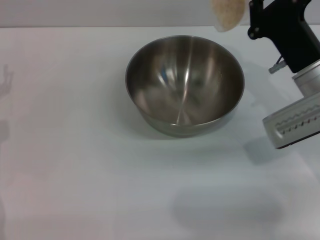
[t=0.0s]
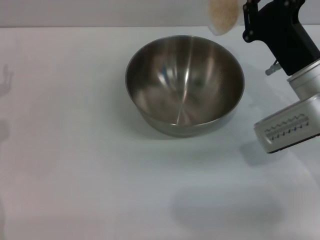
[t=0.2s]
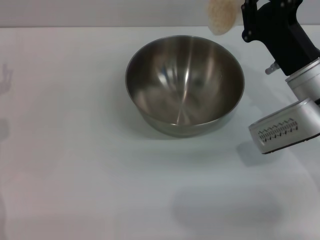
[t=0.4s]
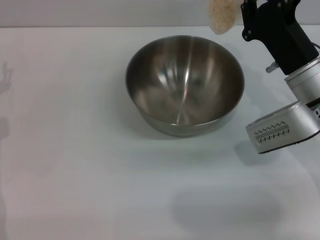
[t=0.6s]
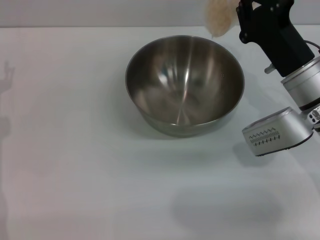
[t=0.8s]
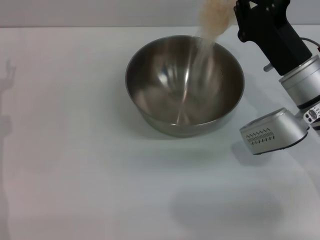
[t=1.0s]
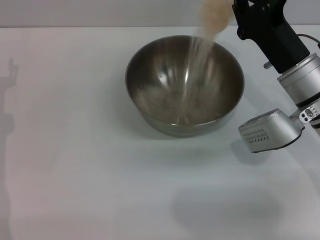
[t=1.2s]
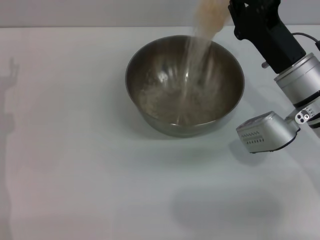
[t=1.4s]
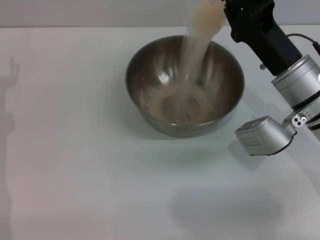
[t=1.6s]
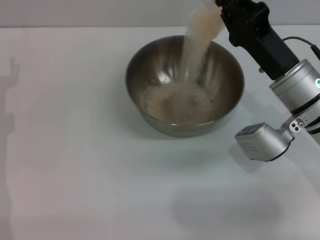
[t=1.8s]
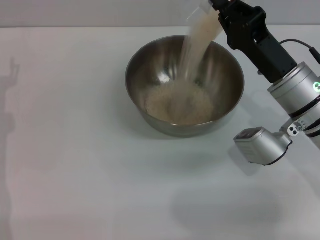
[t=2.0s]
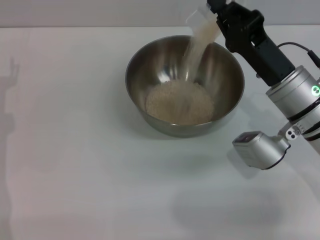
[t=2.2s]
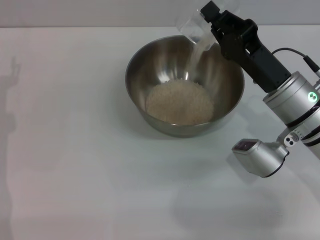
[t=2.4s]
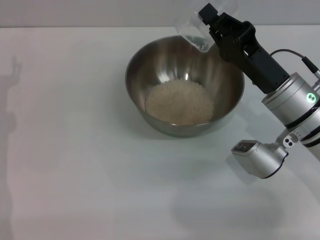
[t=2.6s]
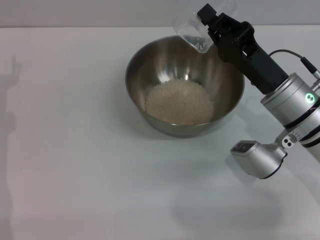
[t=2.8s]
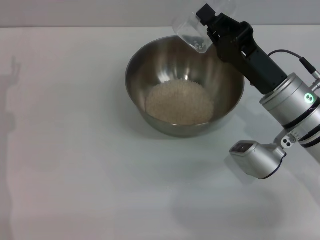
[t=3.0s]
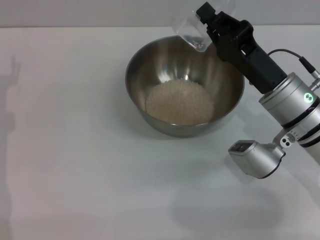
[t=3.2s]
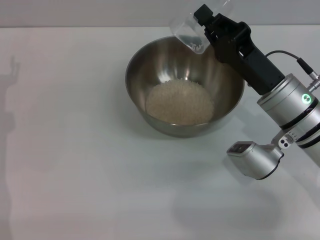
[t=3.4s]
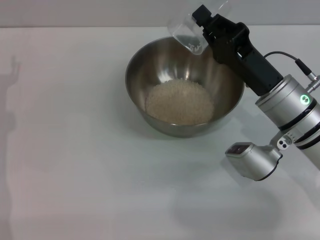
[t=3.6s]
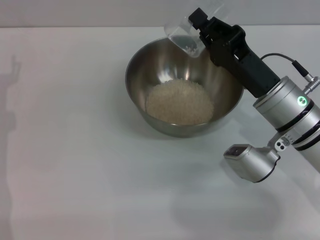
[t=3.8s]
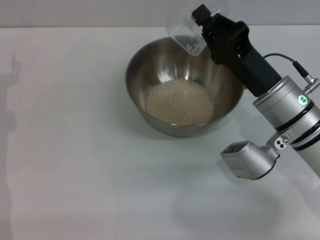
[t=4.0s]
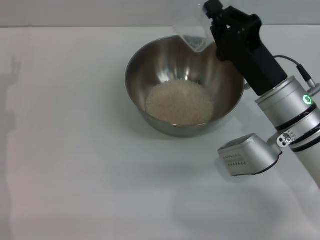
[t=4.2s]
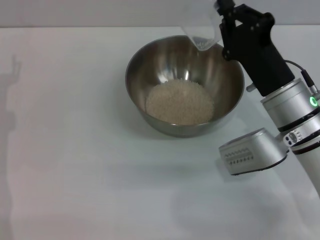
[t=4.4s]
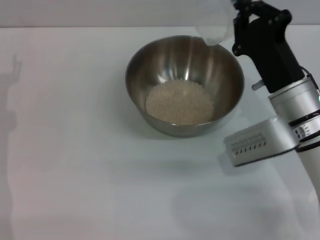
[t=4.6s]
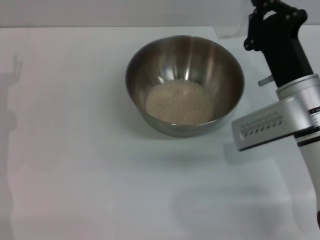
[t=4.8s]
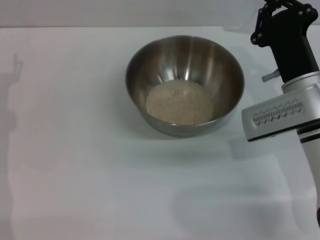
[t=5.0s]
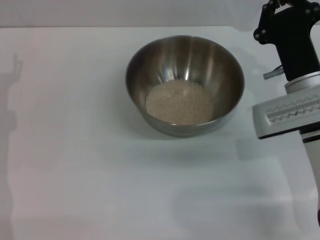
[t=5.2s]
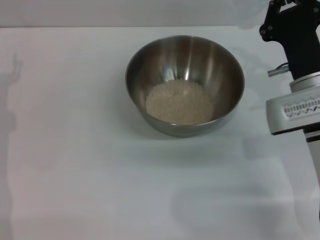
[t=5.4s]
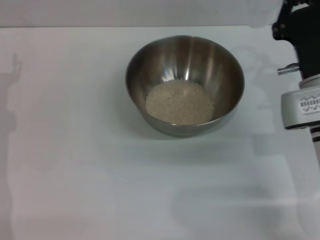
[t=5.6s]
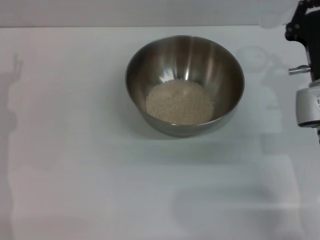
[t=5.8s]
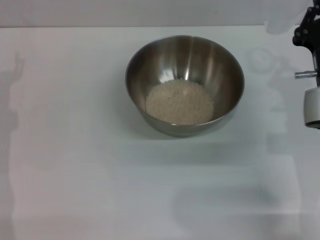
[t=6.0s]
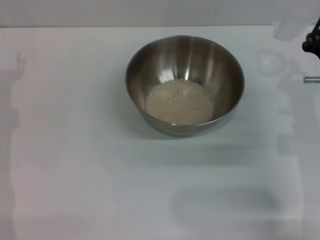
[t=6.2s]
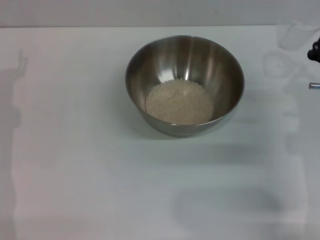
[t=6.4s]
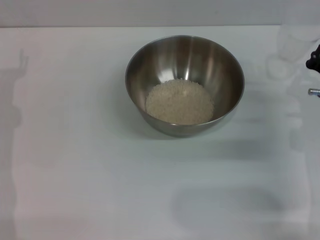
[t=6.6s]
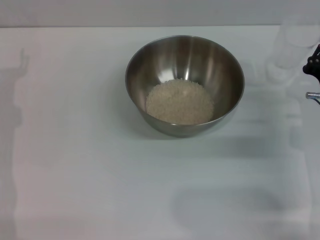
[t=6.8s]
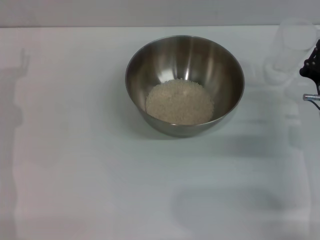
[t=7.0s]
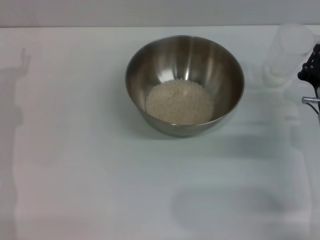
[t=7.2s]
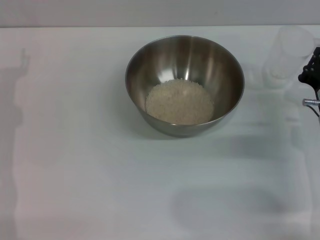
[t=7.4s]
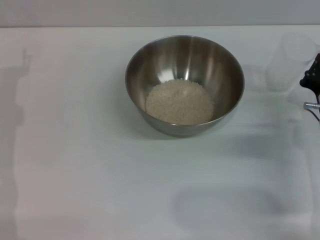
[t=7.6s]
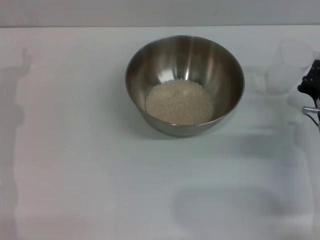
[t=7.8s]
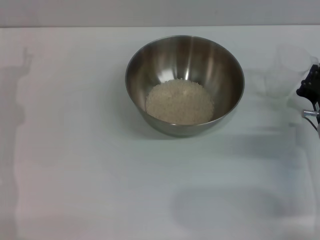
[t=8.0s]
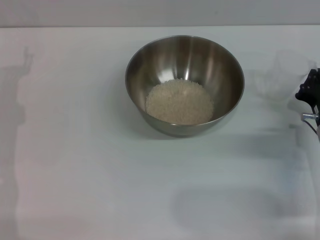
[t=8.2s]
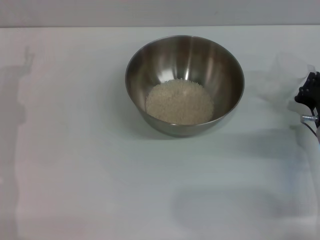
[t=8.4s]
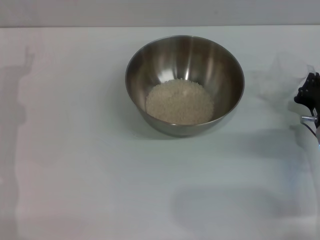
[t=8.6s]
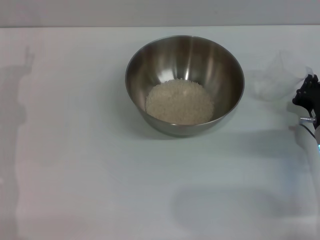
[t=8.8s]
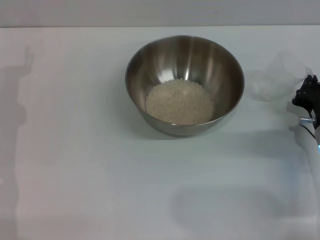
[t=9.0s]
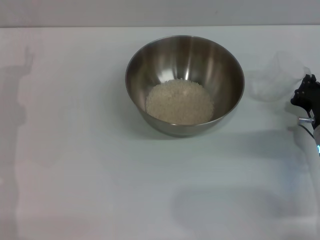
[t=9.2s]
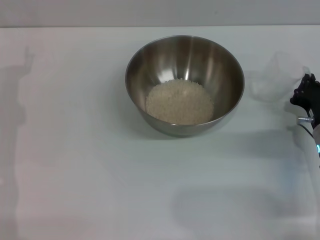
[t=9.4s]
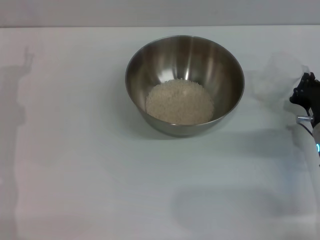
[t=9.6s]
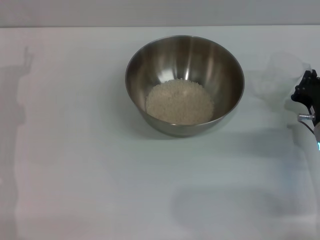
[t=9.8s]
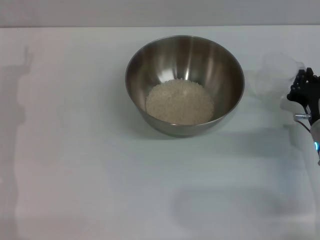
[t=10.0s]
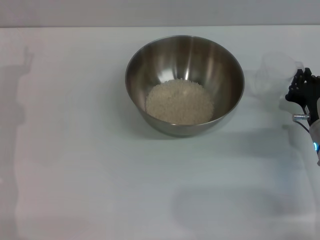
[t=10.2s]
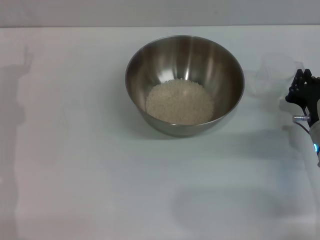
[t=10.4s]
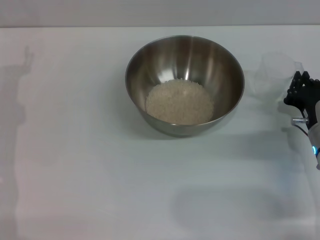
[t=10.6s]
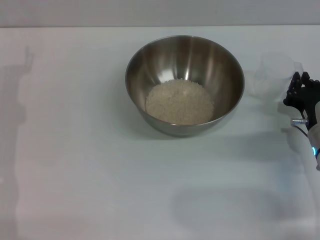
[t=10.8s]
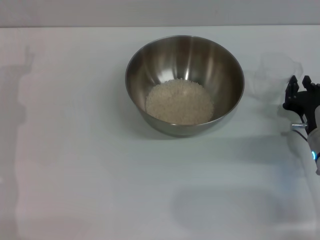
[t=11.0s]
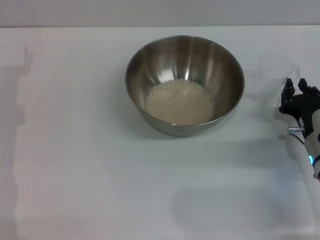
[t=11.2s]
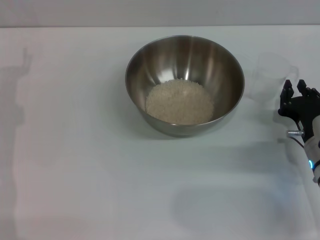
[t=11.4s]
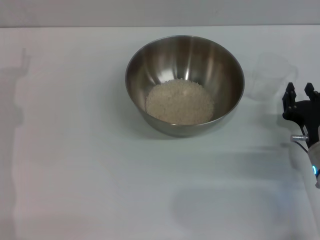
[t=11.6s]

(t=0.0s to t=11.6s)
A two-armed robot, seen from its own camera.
Task of the whole recording: Place the bowl in the middle of the table with one hand and pour the rice from the grain cup into it with the other hand.
Step, t=0.0s - t=3.6s: Pour the rice from the cup into the bowl with the right gripper.
t=1.4s - t=2.8s: The grippers make only small movements.
t=5.8s - t=7.2s: The right gripper ends up some 5 cm from where it was.
t=7.2s - t=8.8s: There are only small adjustments of the grippers.
t=8.8s - t=10.2s: Both grippers stay put.
t=10.2s - t=11.6s: The right gripper opens up.

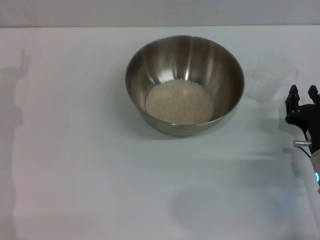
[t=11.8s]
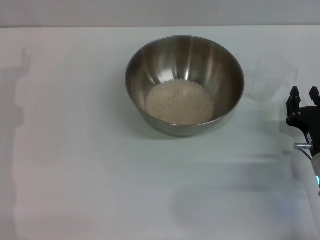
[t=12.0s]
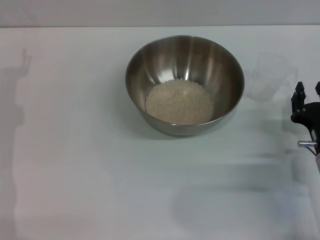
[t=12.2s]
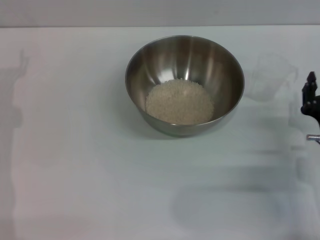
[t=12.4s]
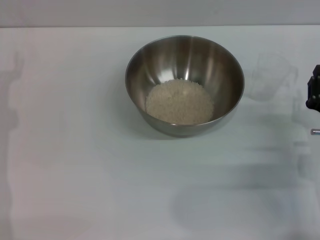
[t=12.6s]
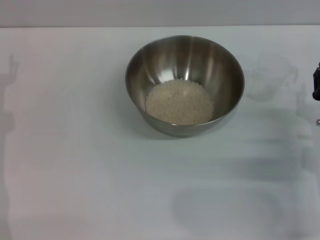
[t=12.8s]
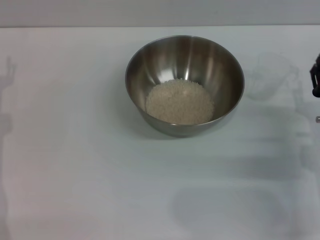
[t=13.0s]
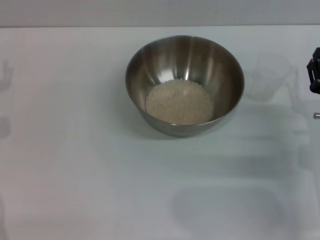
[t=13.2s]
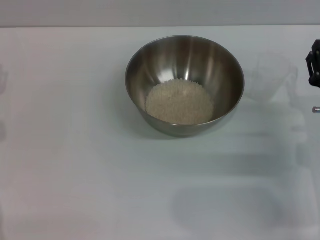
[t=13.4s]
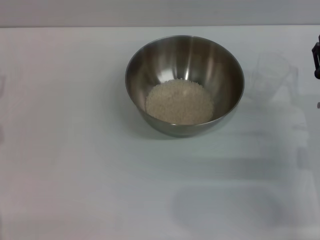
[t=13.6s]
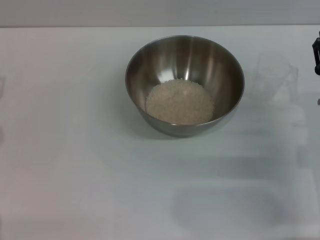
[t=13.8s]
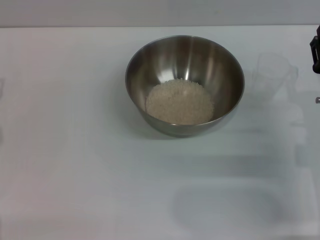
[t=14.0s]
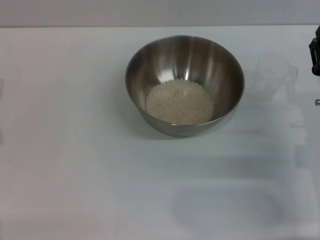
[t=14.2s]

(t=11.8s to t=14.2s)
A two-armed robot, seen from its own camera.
Task of the whole recording: Place the bowl in the middle of the table with one hand and pour the rice from the grain cup into it with the other hand.
t=11.8s - t=13.0s: There are only small adjustments of the grippers.
t=13.0s - t=14.2s: The grippers make only small movements.
